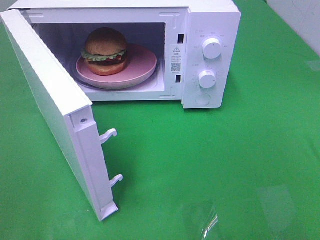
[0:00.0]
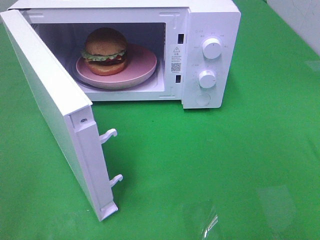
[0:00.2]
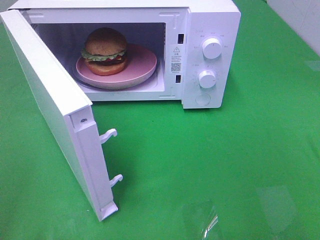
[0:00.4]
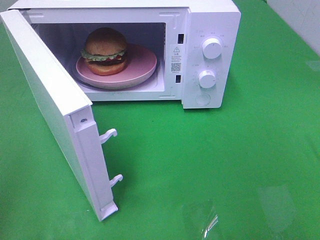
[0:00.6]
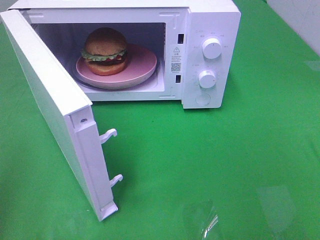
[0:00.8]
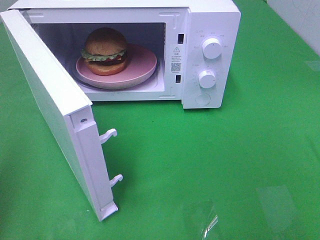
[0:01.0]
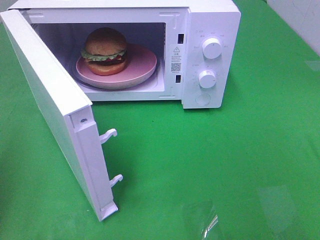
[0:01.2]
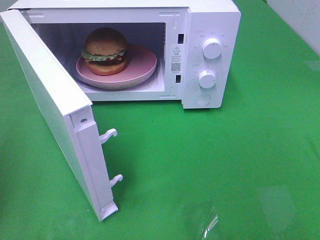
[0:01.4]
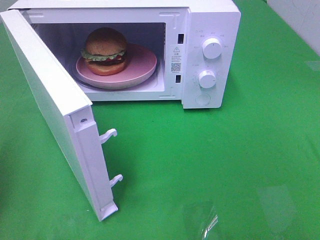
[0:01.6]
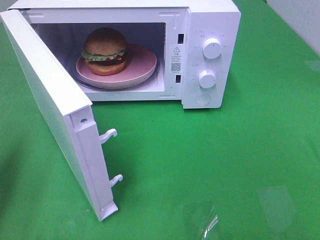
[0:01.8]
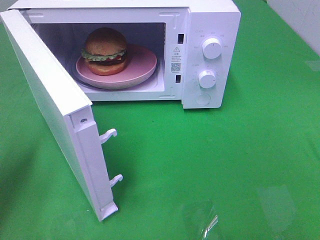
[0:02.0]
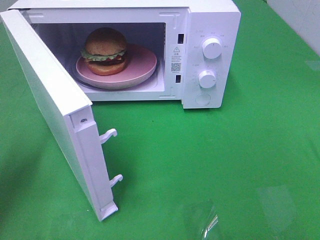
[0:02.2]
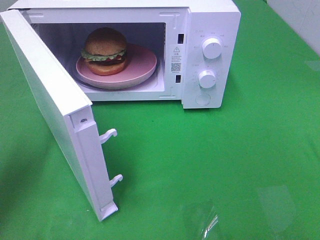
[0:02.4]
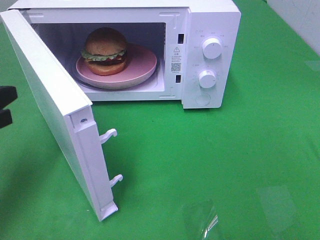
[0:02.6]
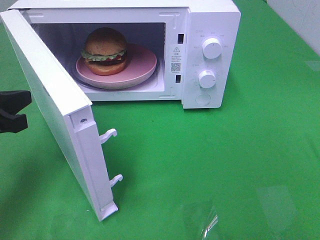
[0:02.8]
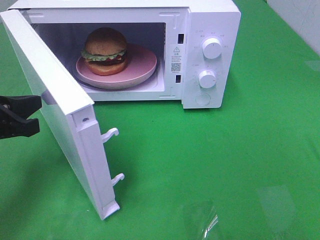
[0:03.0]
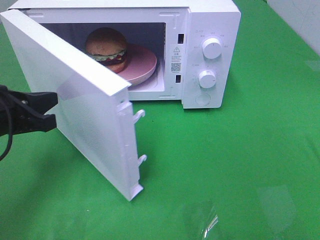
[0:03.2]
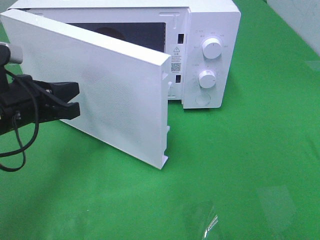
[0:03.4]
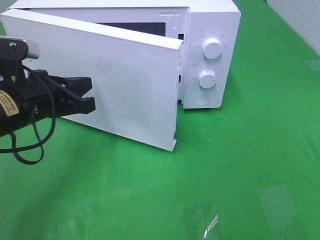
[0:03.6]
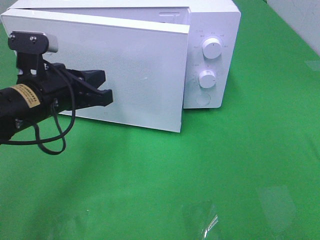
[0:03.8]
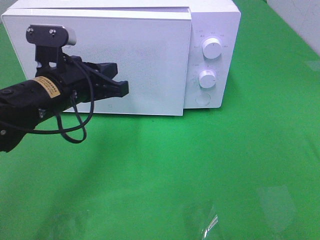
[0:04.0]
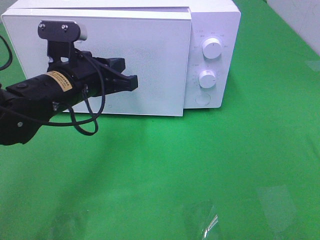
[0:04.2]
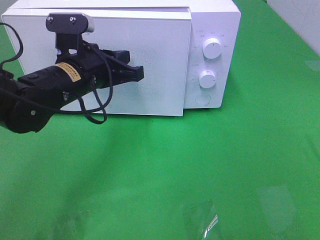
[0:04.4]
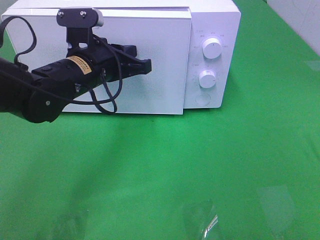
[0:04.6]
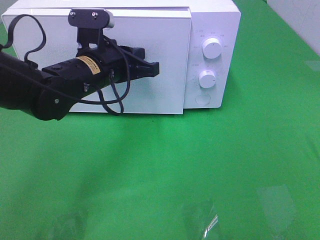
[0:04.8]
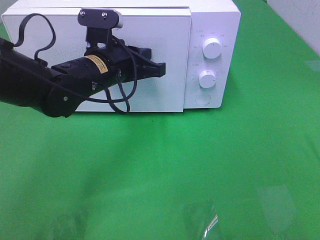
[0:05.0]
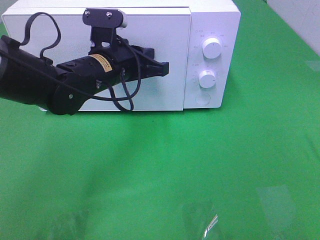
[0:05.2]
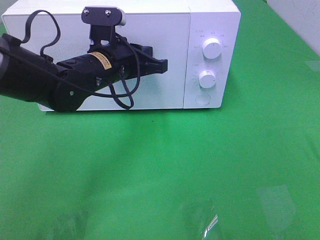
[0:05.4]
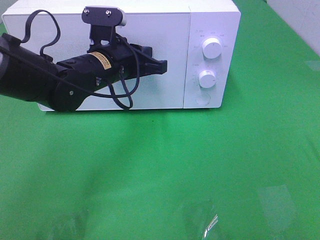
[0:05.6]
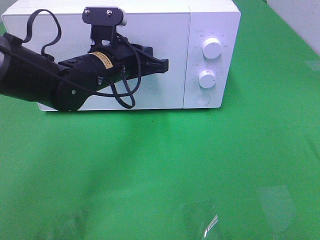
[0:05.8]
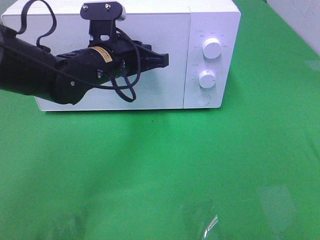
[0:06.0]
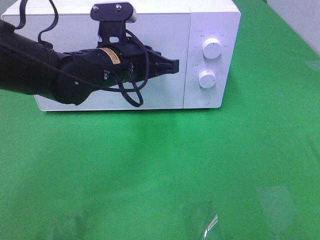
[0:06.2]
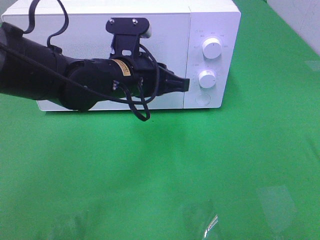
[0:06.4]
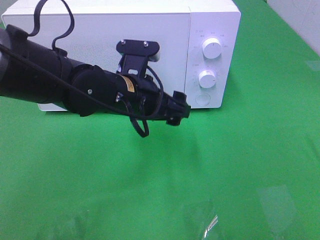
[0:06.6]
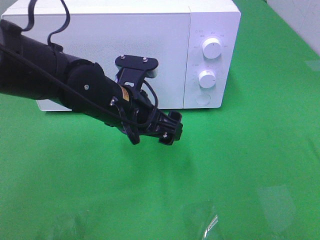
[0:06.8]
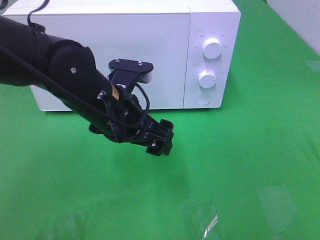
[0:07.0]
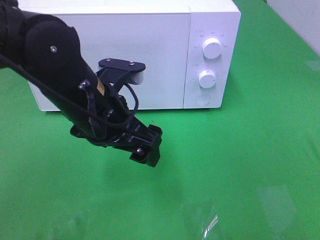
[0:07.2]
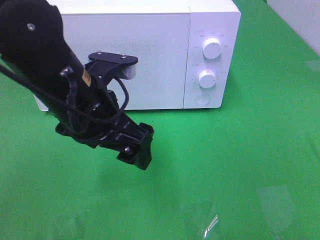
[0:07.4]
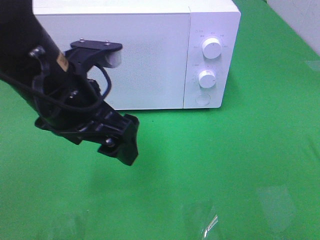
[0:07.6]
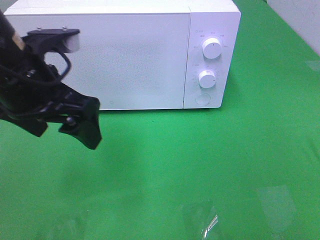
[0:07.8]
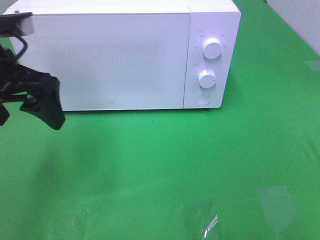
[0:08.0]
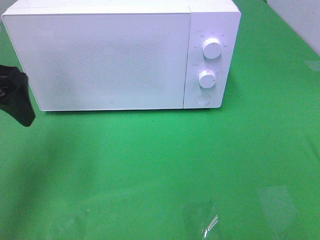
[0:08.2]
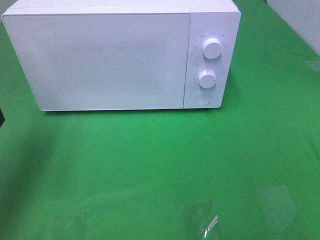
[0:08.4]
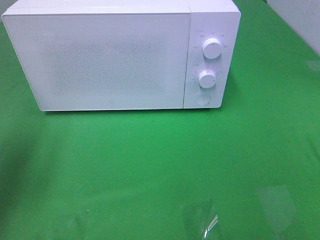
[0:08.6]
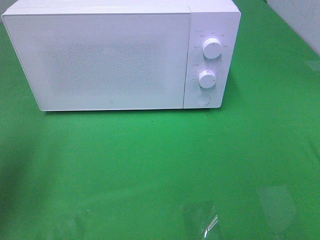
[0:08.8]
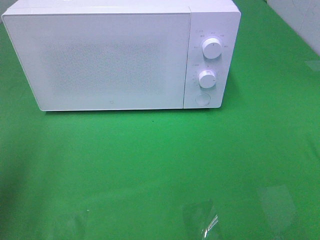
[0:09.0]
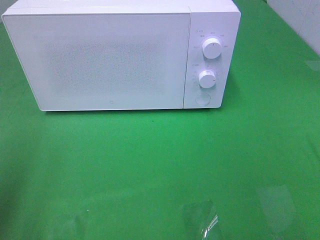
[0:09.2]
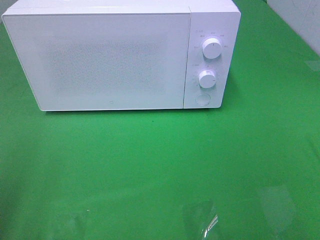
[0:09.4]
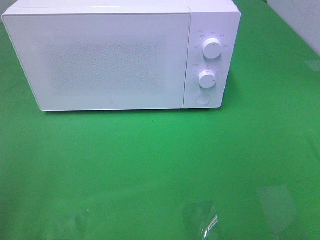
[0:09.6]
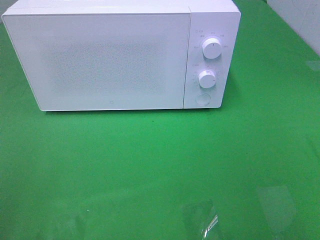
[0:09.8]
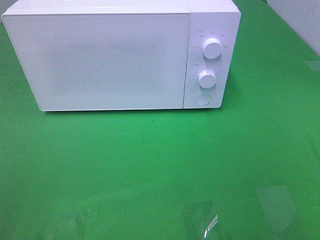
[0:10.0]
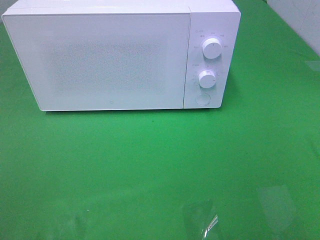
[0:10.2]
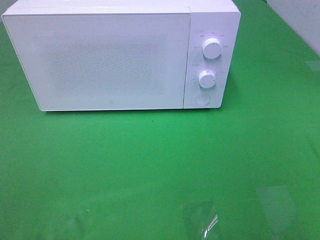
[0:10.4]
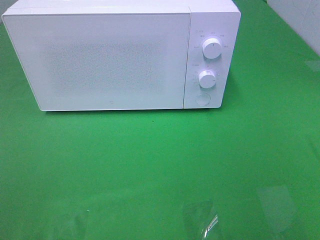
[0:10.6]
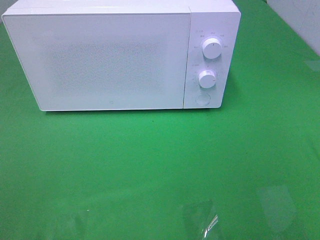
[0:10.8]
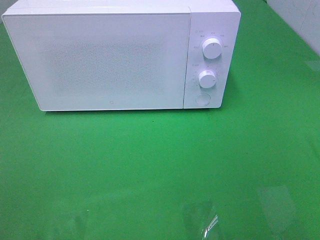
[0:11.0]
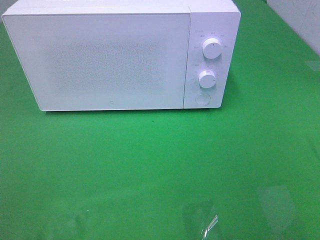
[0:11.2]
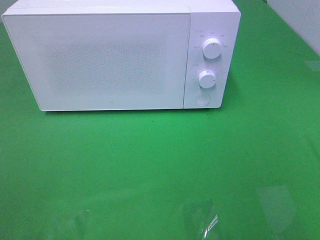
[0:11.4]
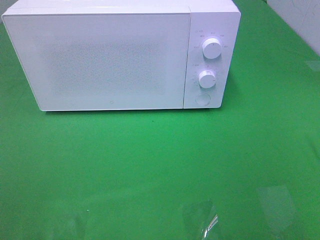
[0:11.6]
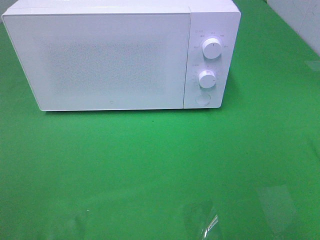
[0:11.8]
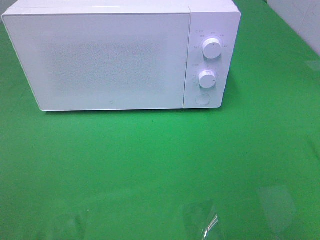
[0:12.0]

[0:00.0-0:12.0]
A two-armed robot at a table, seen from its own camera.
Task of the whole recording: Heat the burger.
Step, 0:00.0 to 0:06.4: Left hand: close the microwave door.
0:01.6 to 0:03.0: The left gripper is displaced to the right, downward and forward by roughly 10 cm.
0:03.0 to 0:04.4: The left gripper heads to the right and forward, covering roughly 15 cm.
0:04.4 to 0:06.0: There are only small adjustments of the grippers.
0:06.0 to 0:07.6: The left gripper travels backward and upward by about 15 cm, and opens.
0:07.6 to 0:09.0: The left gripper shifts some 20 cm to the left.
0:09.0 to 0:10.4: The left gripper shifts approximately 20 cm backward.

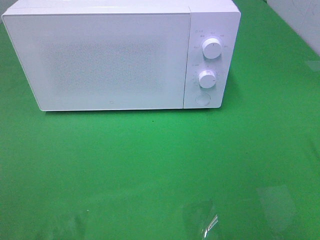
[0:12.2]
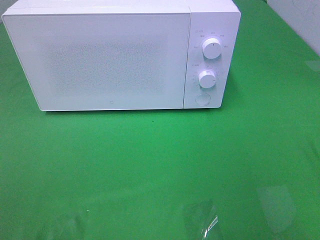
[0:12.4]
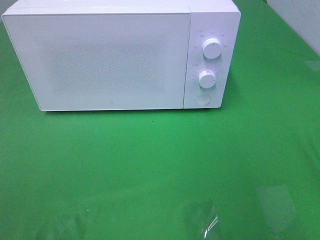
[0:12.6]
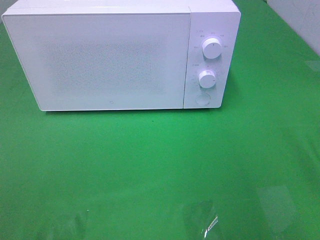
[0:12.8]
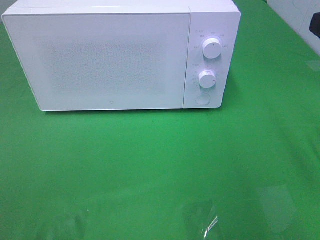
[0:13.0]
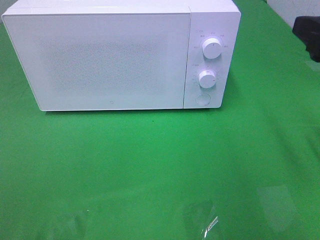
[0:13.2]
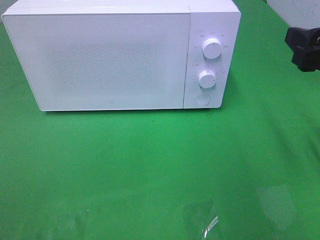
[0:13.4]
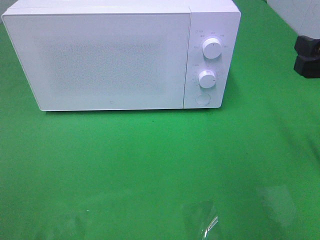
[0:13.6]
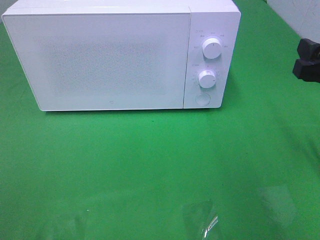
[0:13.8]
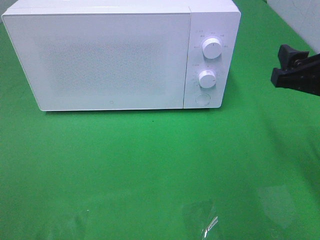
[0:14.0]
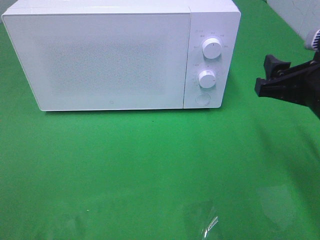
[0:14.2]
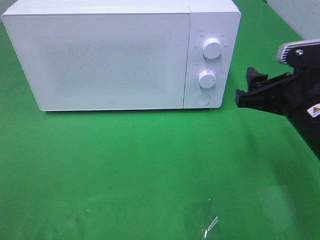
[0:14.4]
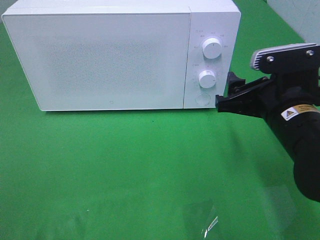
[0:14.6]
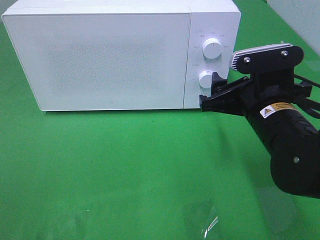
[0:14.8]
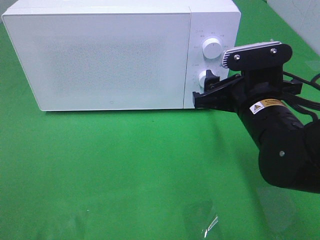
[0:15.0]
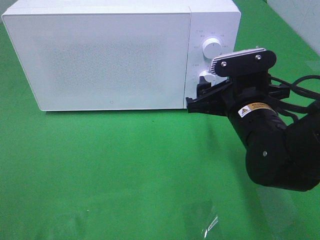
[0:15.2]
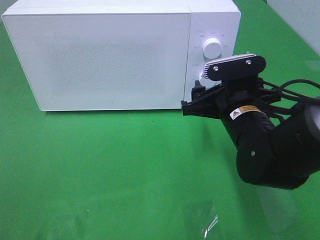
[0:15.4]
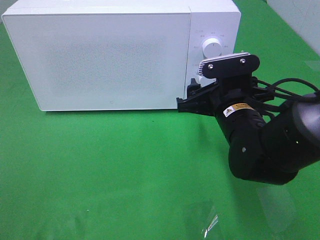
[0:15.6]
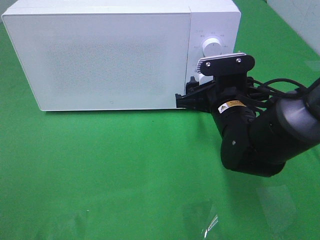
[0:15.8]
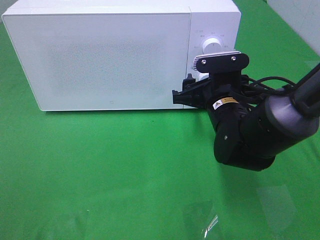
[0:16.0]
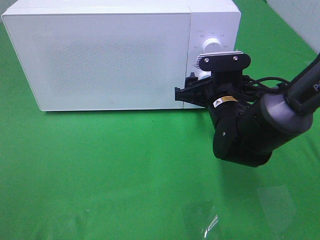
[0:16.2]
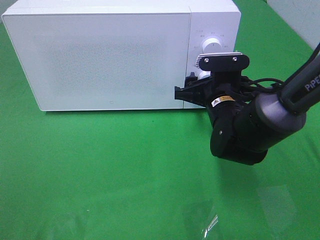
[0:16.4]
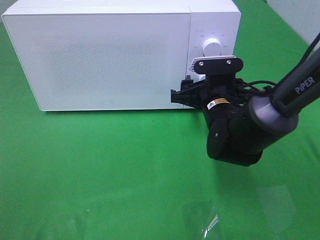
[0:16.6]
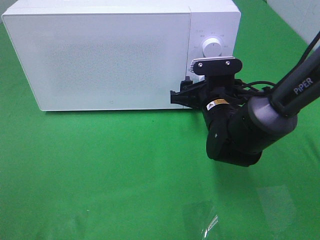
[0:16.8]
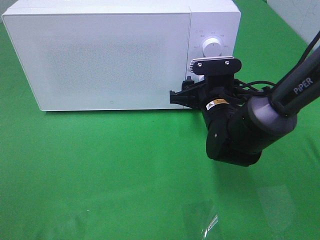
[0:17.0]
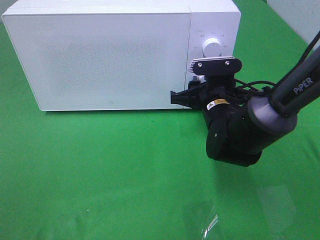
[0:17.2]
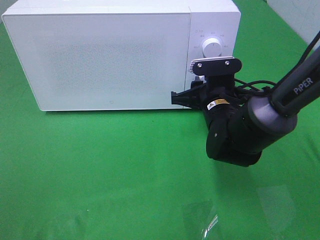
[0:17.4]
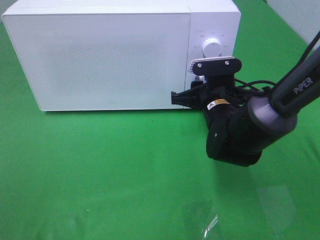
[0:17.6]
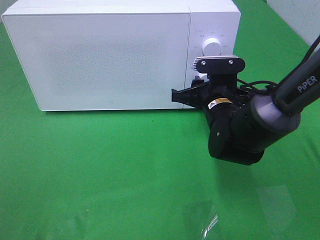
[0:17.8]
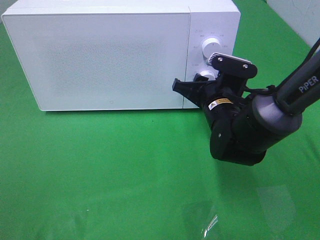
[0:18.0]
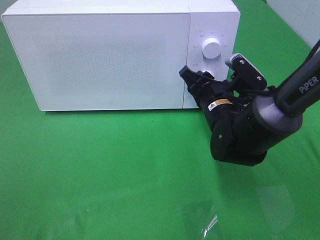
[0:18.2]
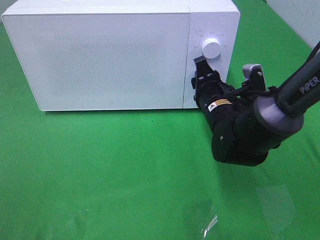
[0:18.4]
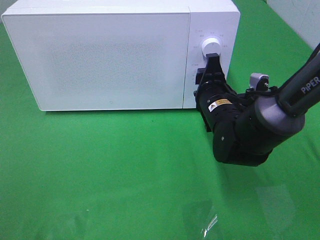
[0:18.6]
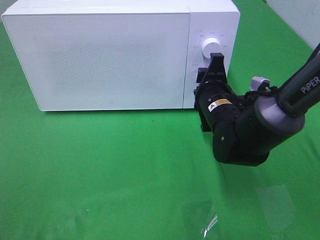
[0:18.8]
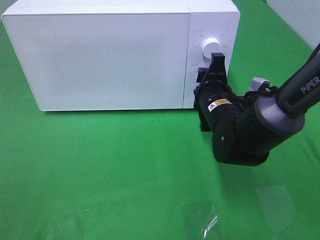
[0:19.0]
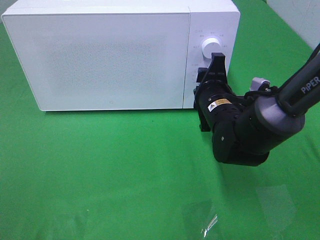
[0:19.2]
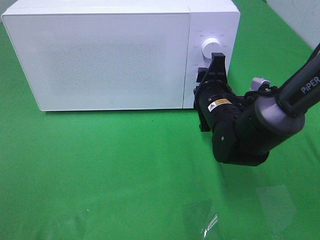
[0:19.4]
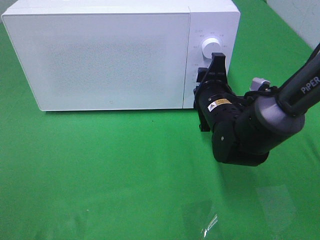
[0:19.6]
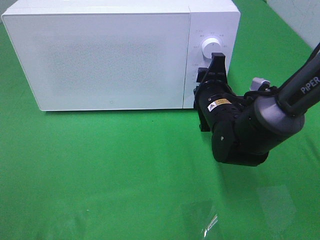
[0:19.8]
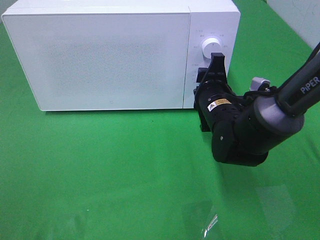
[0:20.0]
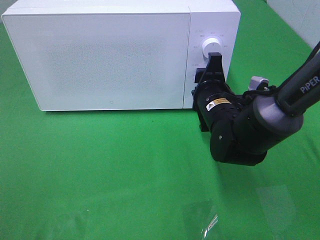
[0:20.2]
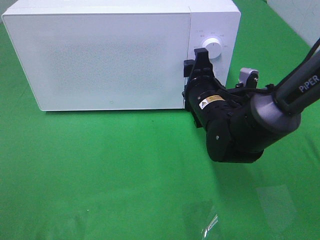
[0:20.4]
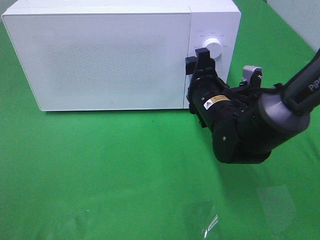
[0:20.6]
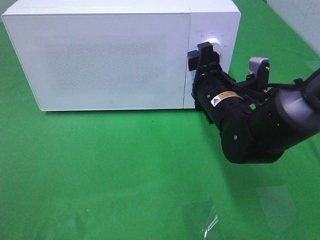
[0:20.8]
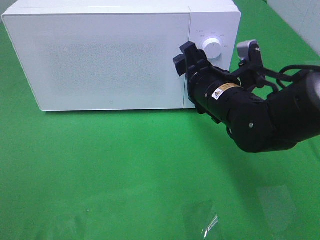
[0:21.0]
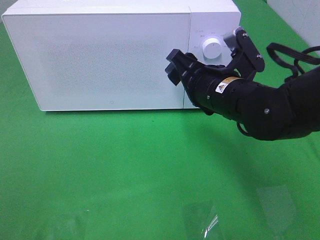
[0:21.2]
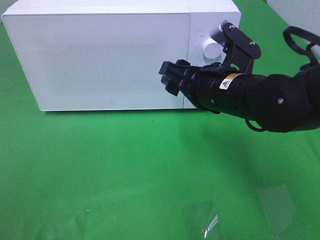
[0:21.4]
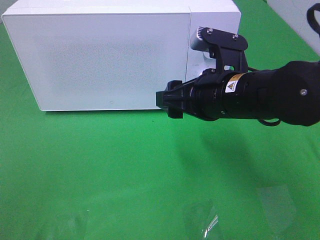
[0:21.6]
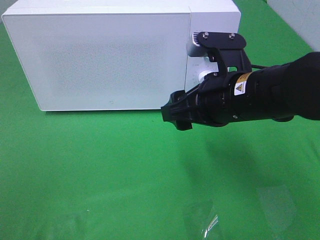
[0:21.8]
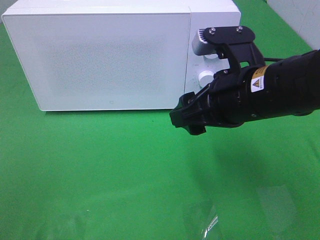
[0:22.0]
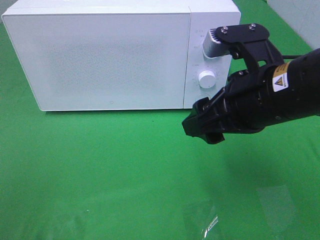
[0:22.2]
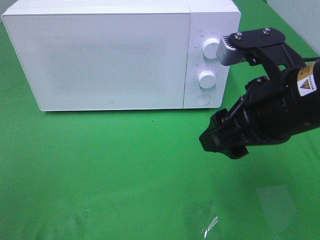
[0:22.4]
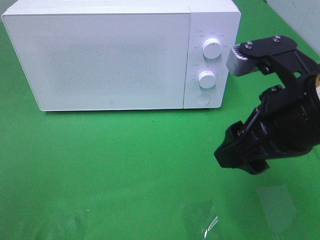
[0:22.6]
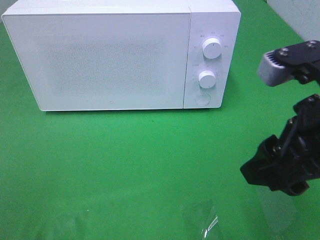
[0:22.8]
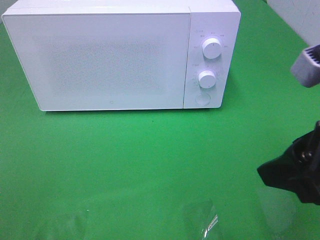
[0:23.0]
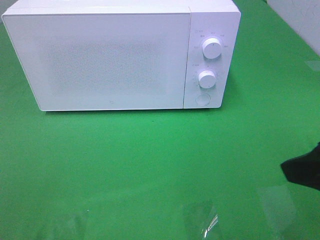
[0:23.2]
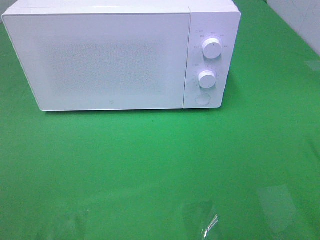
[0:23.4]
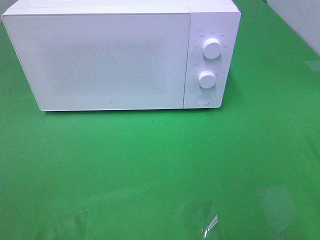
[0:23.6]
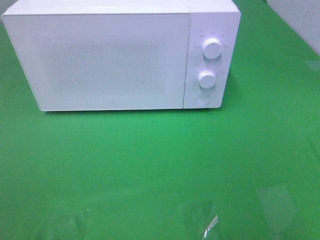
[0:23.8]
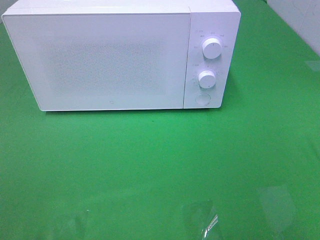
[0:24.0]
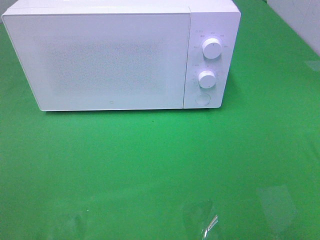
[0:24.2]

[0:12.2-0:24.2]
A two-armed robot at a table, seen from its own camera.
Task of the whole recording: Heat the burger.
Step, 0:12.2 to 0:20.2: Right hand: twist timer button.
0:12.2 to 0:13.8: The right gripper travels forward and downward by about 15 cm.
0:13.8 to 0:15.2: The right gripper heads to the left and downward, covering roughly 15 cm.
0:15.2 to 0:16.6: The right gripper shifts approximately 5 cm forward.
0:16.6 to 0:18.2: The right gripper closes.
0:19.8 to 0:21.2: The right gripper travels upward by roughly 5 cm.
0:21.2 to 0:22.6: The right gripper is displaced backward, upward and to the right by some 15 cm.
0:22.6 to 0:24.2: The right gripper heads backward and to the right, covering roughly 20 cm.
